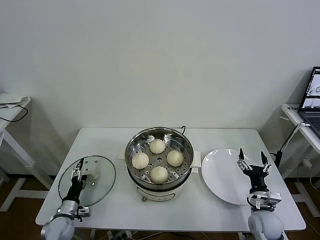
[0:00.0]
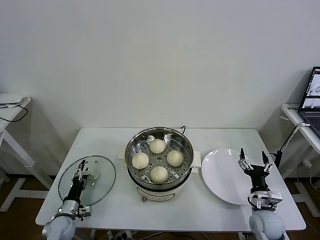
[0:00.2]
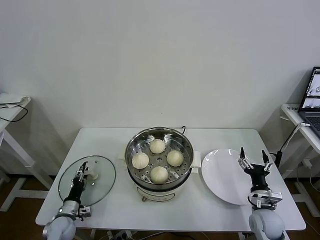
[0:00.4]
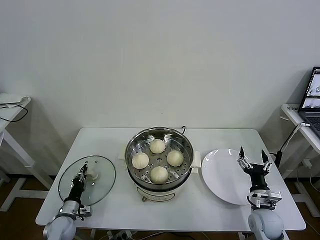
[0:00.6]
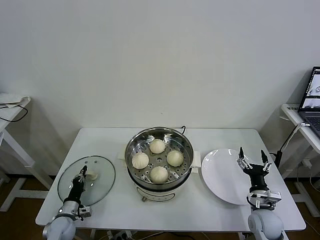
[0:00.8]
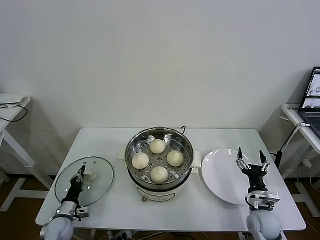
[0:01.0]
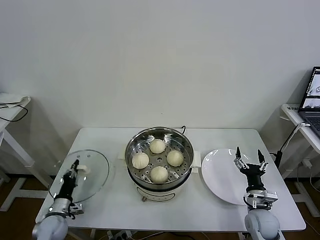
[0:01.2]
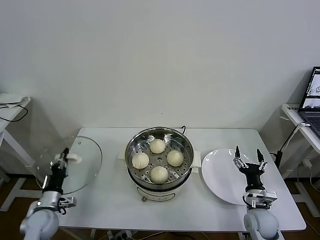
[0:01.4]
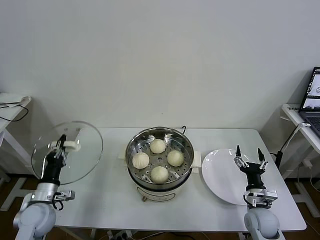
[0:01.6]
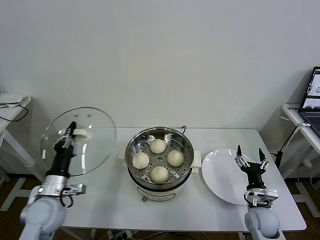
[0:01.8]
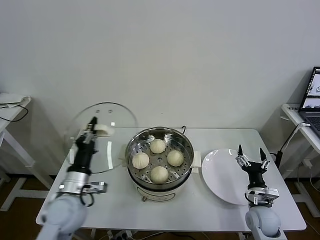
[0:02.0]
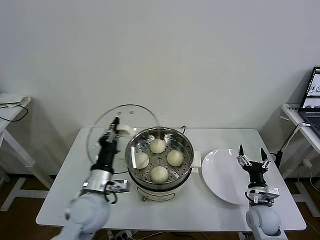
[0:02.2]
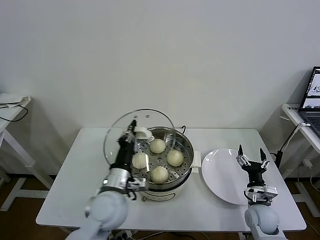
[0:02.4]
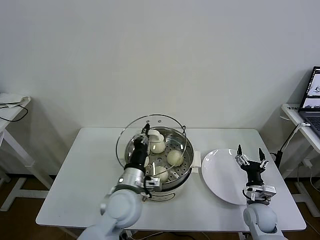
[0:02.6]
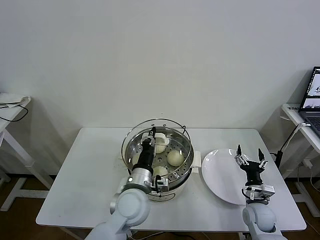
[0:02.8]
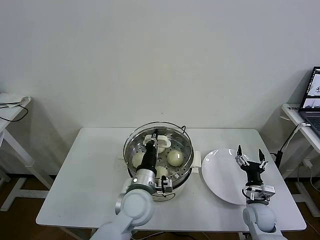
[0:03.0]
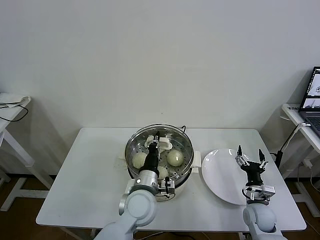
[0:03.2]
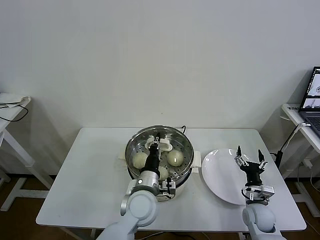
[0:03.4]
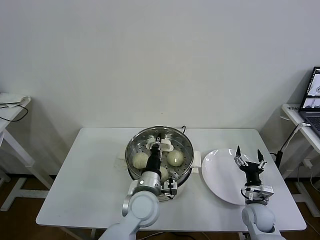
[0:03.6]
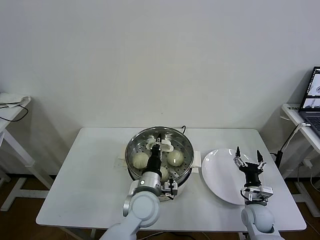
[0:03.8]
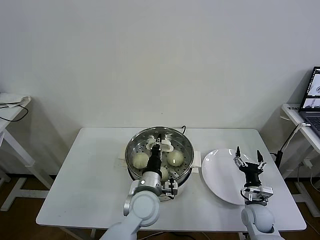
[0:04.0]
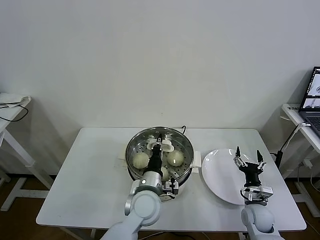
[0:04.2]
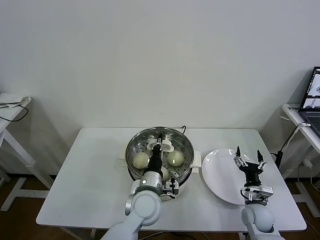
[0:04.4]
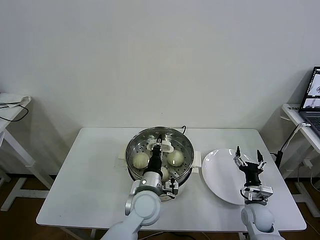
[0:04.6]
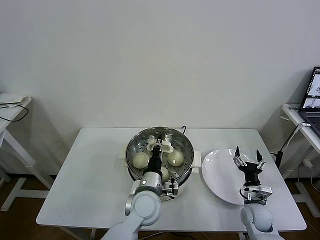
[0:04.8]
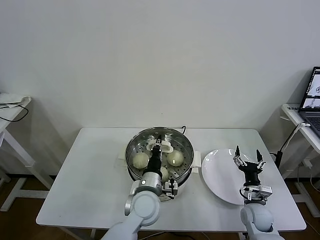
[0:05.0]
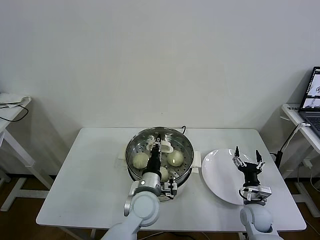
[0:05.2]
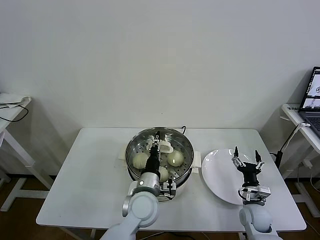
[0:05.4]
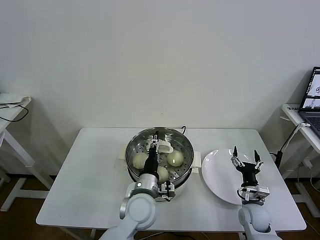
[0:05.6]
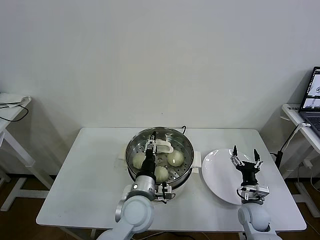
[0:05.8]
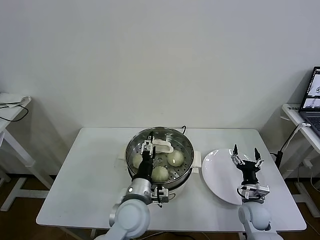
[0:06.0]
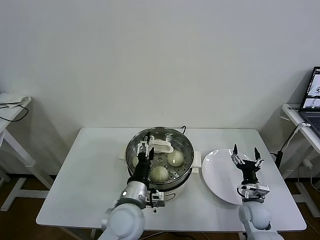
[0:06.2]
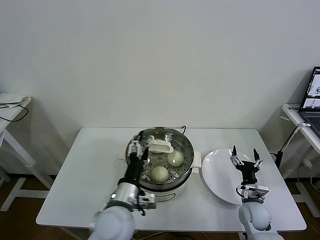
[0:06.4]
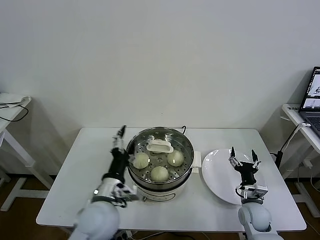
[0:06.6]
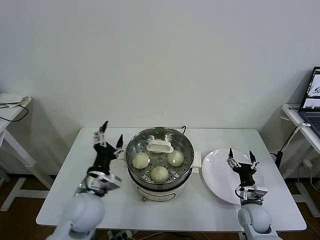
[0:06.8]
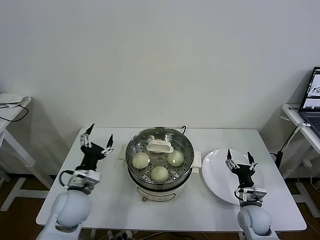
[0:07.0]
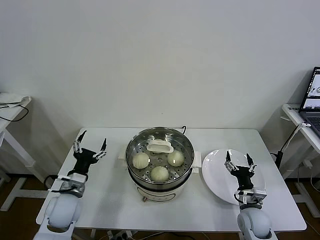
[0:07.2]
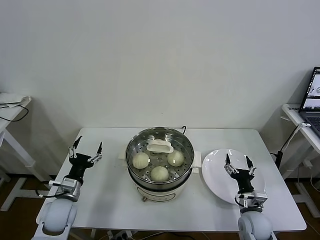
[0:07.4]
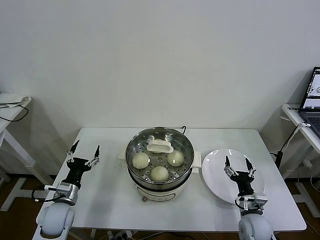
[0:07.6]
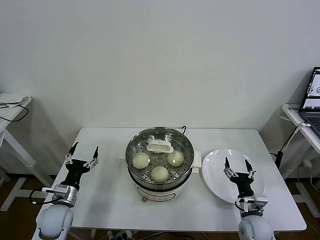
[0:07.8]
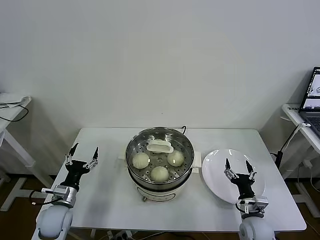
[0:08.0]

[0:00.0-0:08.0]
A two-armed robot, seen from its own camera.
Task of the whole recording: take steamed baozi put them in steamer then cover it.
Step, 0:01.2 to 0:06.0: Place the pot lid on the steamer with left gripper.
0:00.0 to 0:01.6: The left gripper heads upward, covering some 15 cm, and closes up.
0:01.6 to 0:03.2: The left gripper travels to the right by approximately 30 cm.
0:03.2 to 0:04.8: The grippers move only a little.
0:04.8 to 0:06.4: The left gripper goes about 10 cm backward and to the left, and opens up.
0:06.4 to 0:08.0: The left gripper shifts roughly 25 cm to the left and downward. Meanwhile the right gripper changes place by some 5 cm.

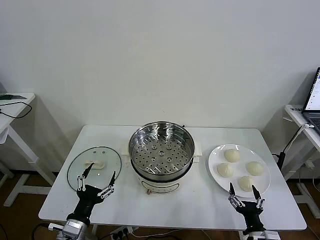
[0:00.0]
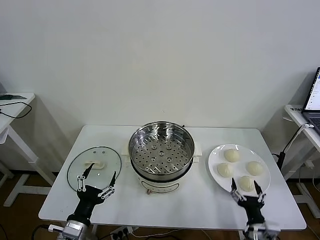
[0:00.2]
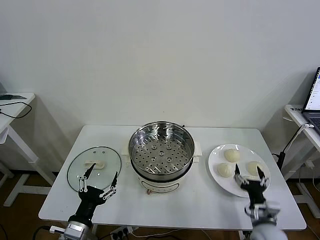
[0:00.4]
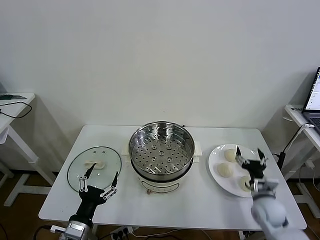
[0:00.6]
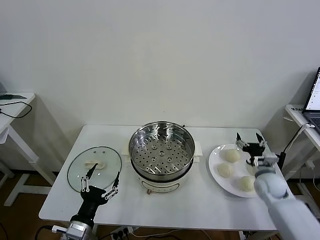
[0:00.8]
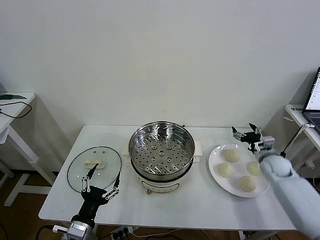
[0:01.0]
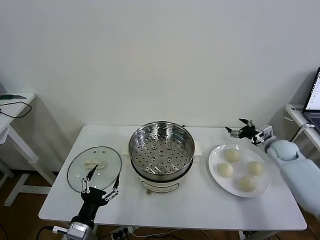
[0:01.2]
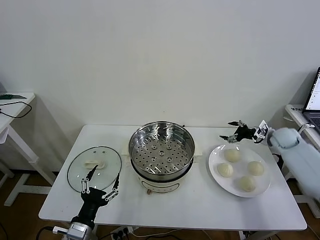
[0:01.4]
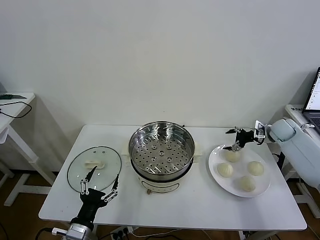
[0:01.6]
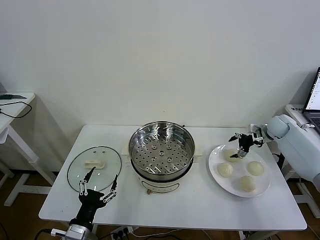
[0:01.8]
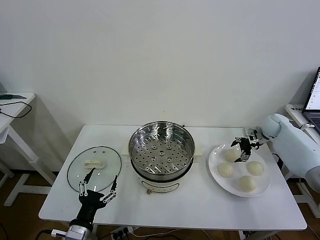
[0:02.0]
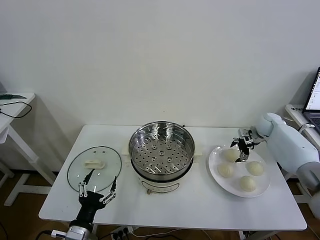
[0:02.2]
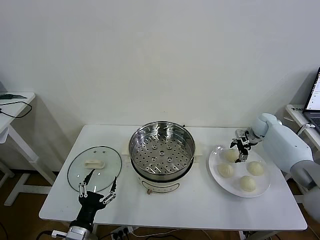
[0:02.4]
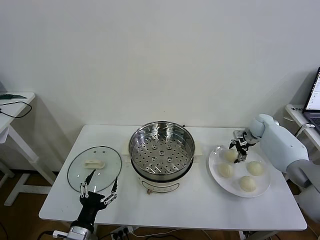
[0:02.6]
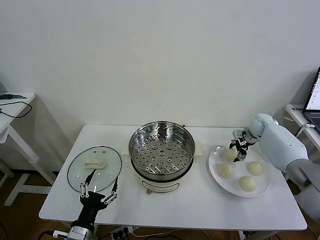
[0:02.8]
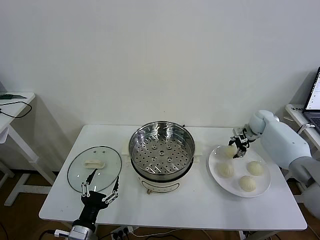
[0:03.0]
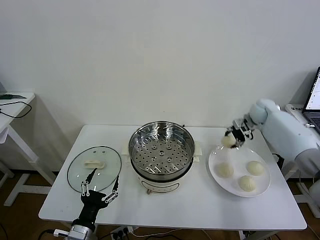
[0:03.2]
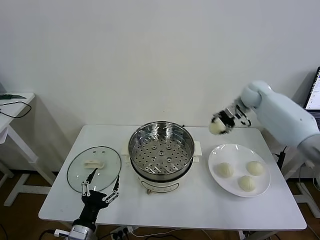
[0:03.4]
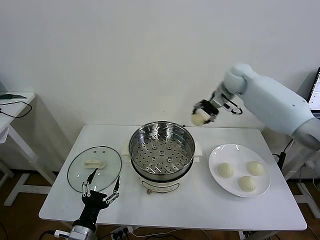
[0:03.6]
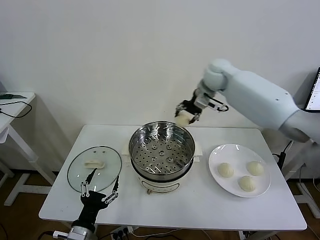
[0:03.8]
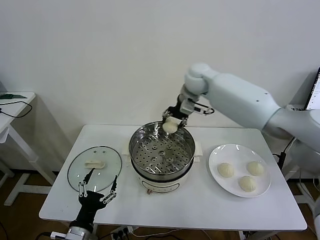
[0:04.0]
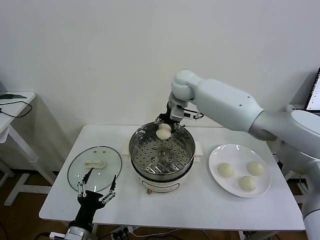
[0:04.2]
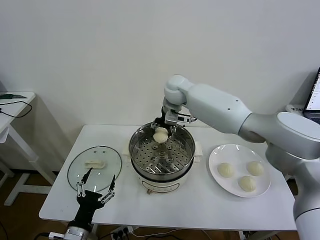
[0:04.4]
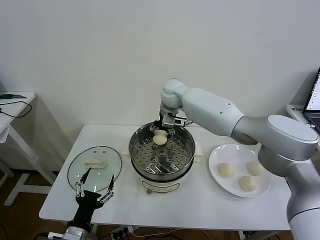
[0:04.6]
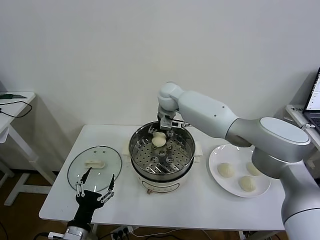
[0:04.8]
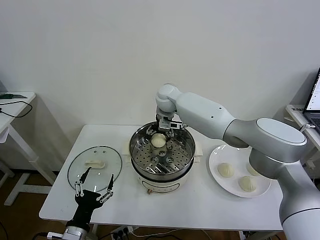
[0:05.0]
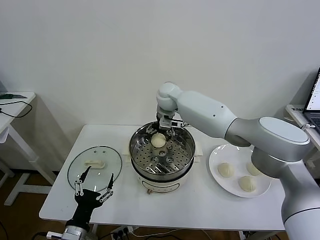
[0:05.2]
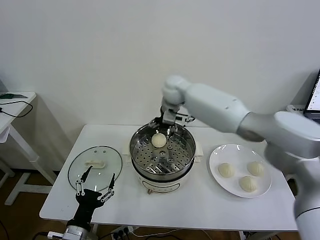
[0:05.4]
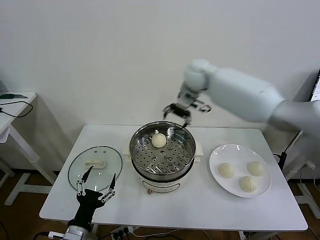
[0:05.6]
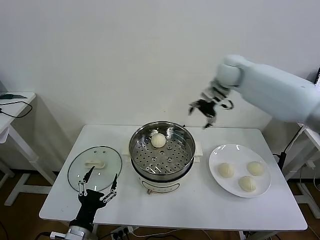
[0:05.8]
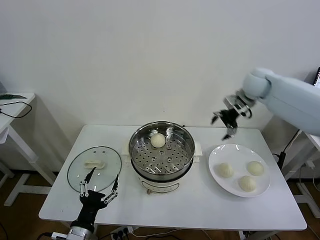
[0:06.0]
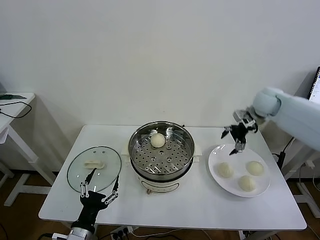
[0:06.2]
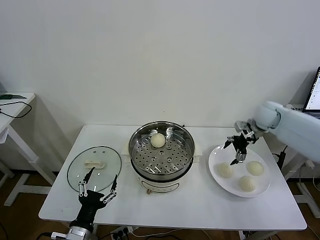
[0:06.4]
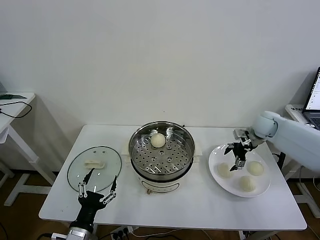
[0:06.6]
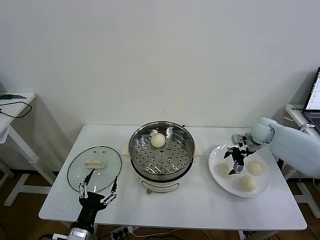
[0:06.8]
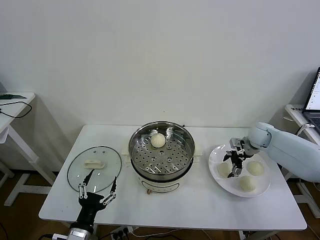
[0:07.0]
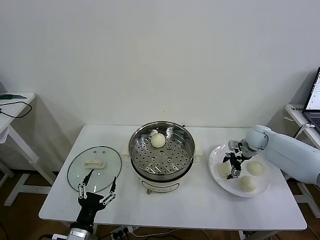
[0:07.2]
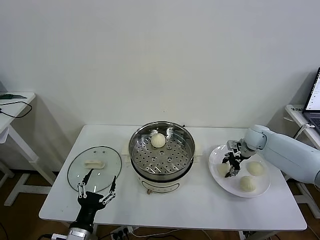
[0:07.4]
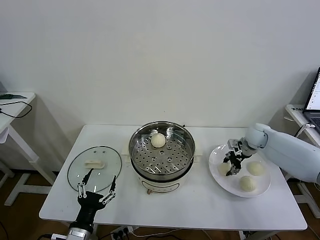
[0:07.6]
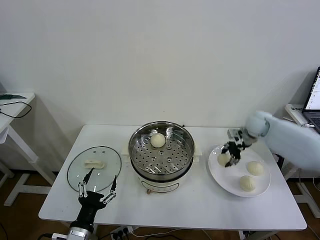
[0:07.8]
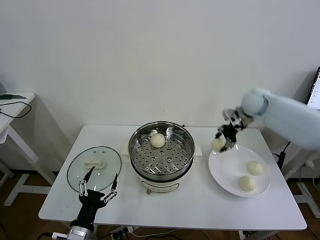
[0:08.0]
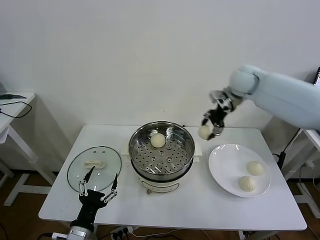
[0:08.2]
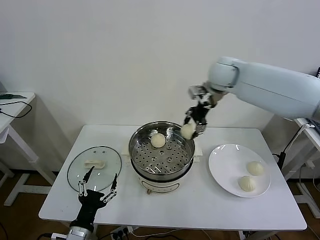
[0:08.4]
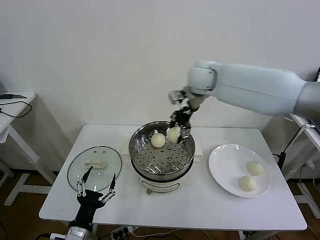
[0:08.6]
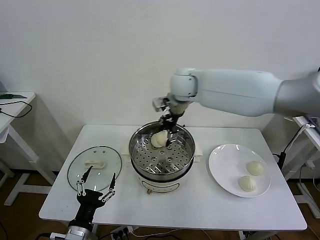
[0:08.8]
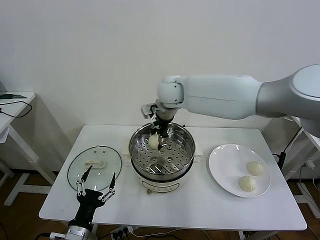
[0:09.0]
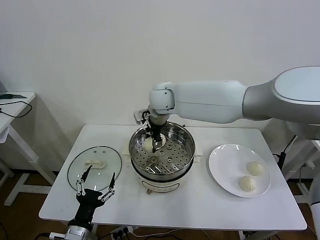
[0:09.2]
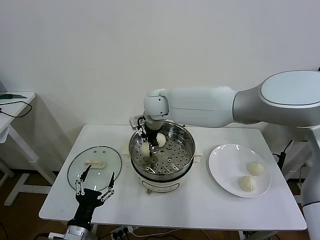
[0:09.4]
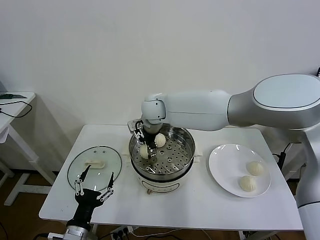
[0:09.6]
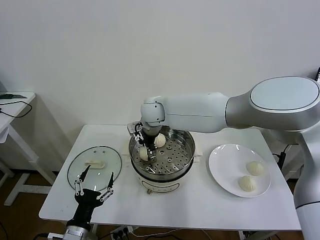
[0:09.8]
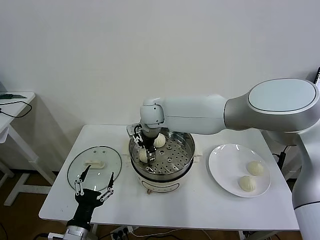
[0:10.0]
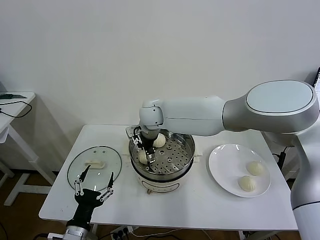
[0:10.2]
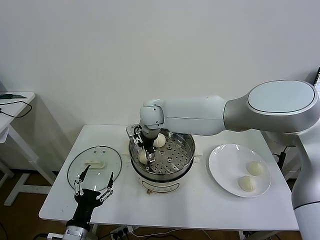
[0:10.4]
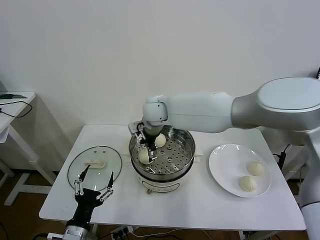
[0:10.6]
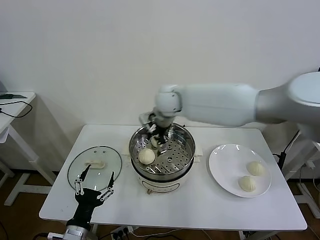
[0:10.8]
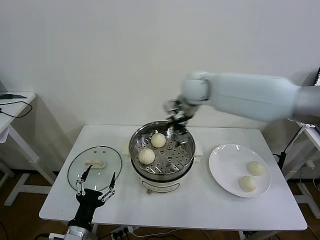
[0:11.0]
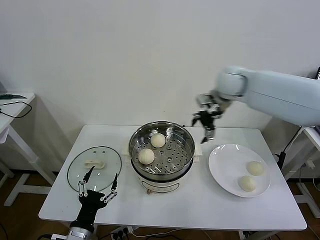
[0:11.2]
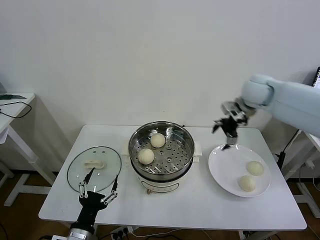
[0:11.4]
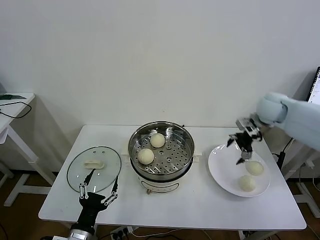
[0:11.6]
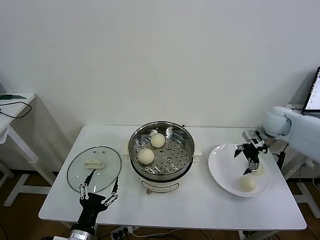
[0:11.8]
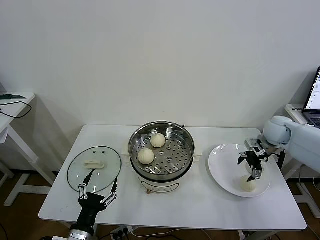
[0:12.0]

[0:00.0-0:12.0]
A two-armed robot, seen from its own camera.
Task of the whole recording: take steamed baozi put them in steamer then cover it.
Step, 0:00.0 to 0:02.8: Grasp the baozi in the plate with right gripper.
Step, 0:03.0 to 0:05.0: Place the baozi on the steamer with right gripper.
Step, 0:05.4 to 0:07.4: Grasp the baozi in the plate with right gripper.
Step, 0:07.6 to 0:10.4: Place the baozi on the steamer with right gripper.
0:01.6 to 0:03.0: The right gripper heads to the left and forward, covering approximately 10 cm, and closes its fingers.
0:03.0 to 0:04.4: The right gripper travels to the left by about 35 cm.
0:04.4 to 0:06.0: The right gripper heads to the right, covering roughly 30 cm, and opens.
0:06.0 to 0:07.6: The right gripper travels downward by some 10 cm, and closes up.
0:07.6 to 0:09.0: The right gripper goes about 35 cm to the left.
0:09.0 to 0:10.4: The right gripper changes place by approximately 5 cm, and opens its fingers.
0:10.4 to 0:12.0: The right gripper shifts approximately 40 cm to the right.

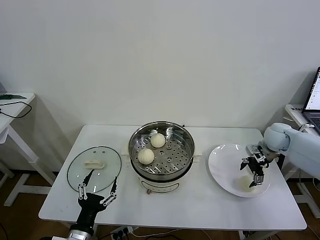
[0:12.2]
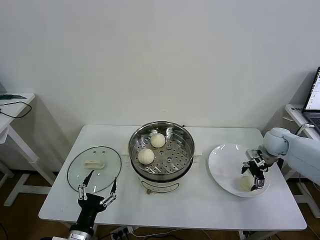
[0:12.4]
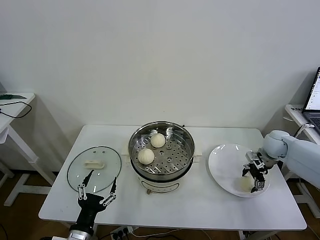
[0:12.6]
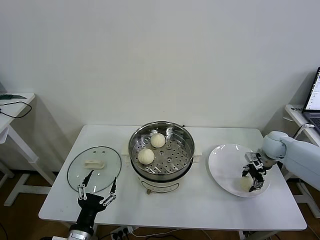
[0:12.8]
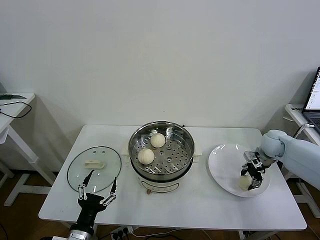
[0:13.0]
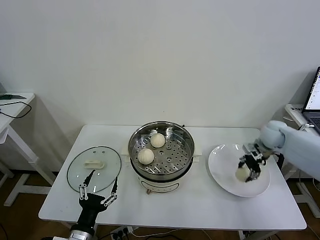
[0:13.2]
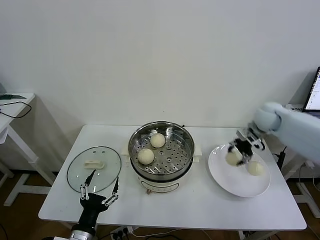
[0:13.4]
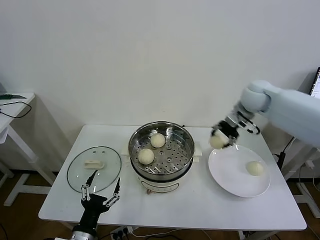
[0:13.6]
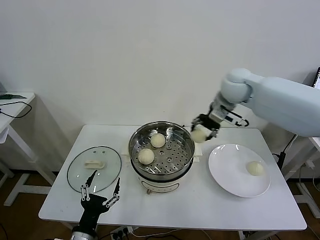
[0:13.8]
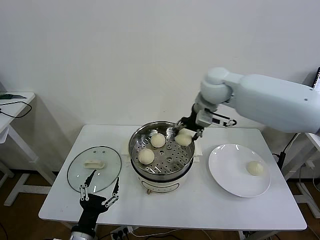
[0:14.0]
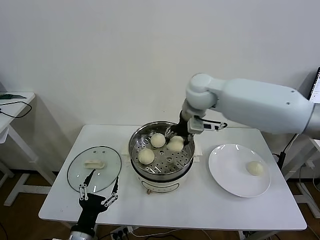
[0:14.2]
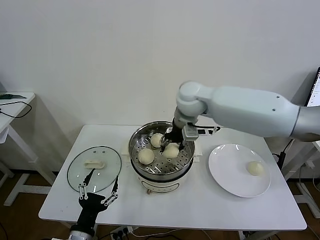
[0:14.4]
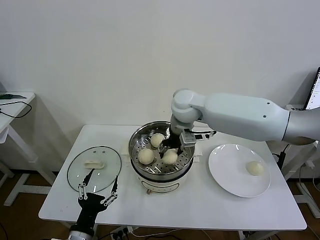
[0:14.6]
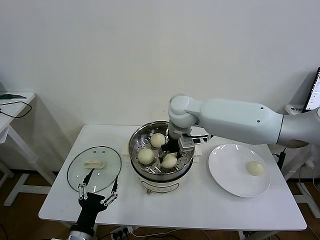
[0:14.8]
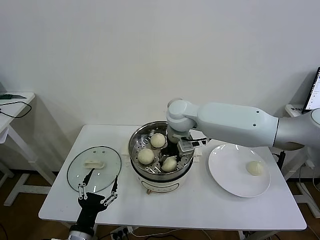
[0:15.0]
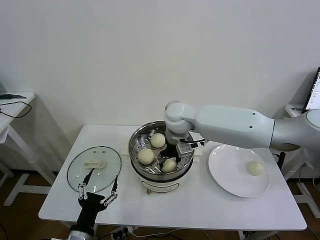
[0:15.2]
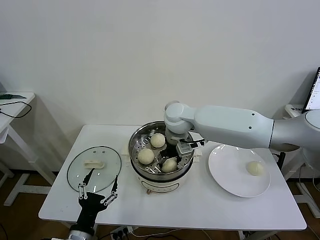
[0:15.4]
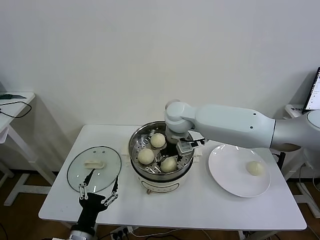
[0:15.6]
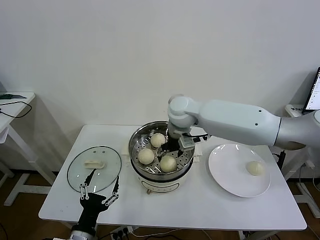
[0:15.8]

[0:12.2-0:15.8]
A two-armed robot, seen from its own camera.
Task of the whole recording: take steamed baozi put them in steamer then cover it.
Step, 0:13.2 to 0:15.6: Place the baozi on the steamer with right gripper.
0:12.2 to 0:14.0: The right gripper travels to the left and upward by approximately 35 cm, and closes its fingers.
0:14.0 to 0:15.8: The right gripper travels downward and to the left by roughly 10 cm, and opens.
